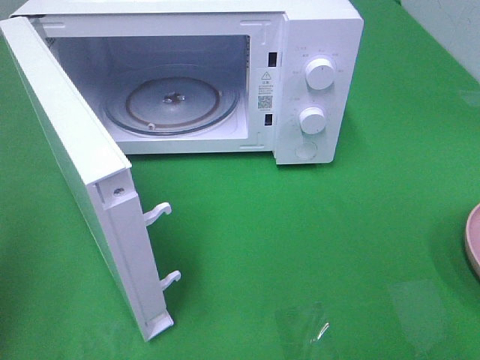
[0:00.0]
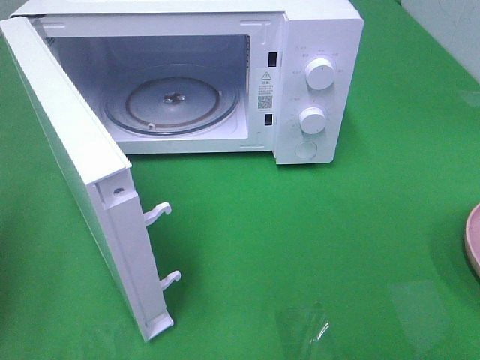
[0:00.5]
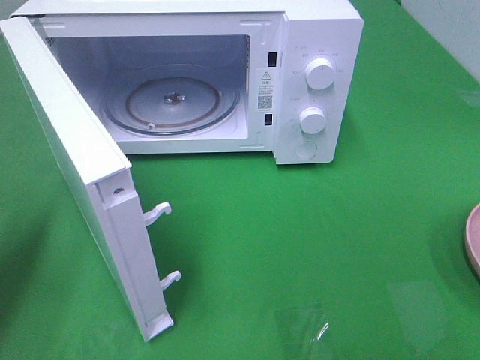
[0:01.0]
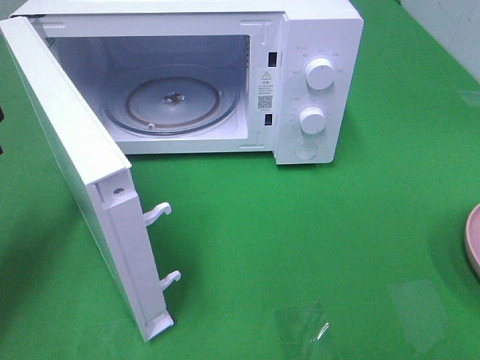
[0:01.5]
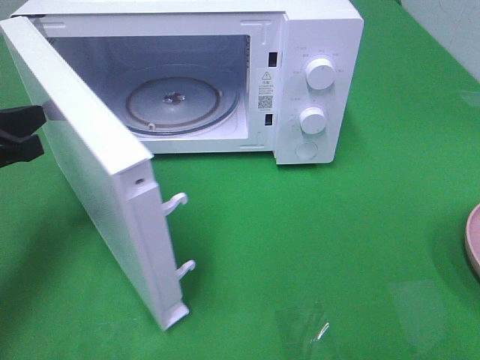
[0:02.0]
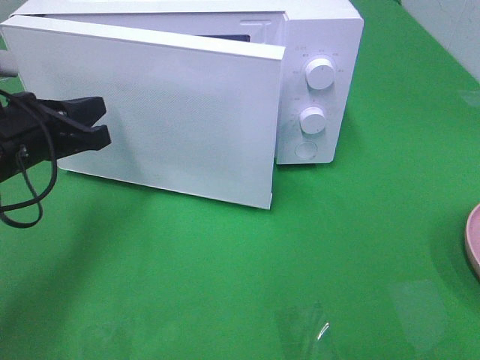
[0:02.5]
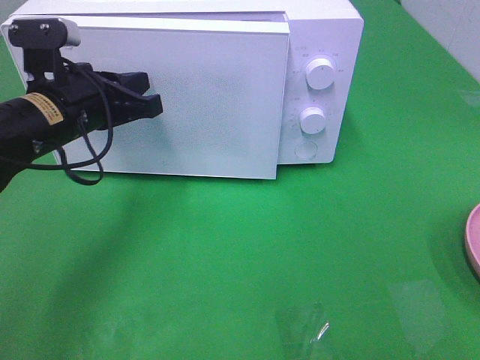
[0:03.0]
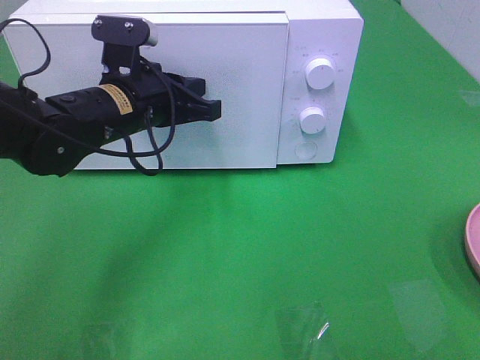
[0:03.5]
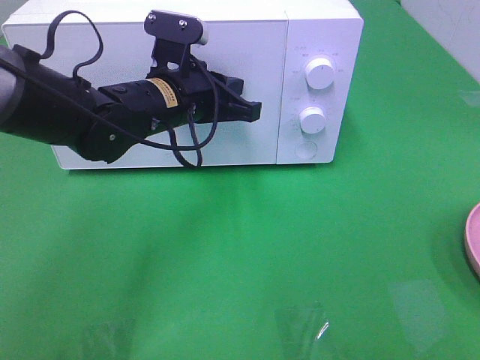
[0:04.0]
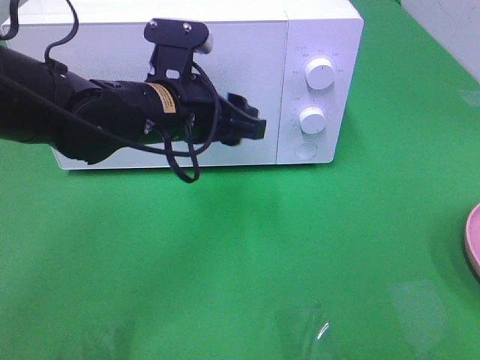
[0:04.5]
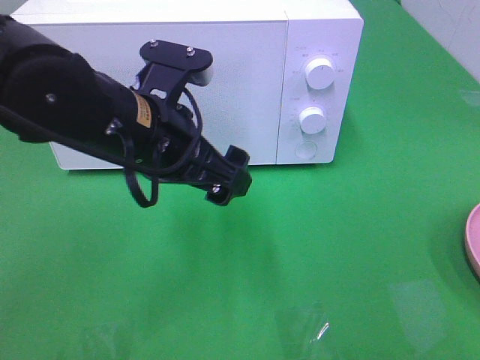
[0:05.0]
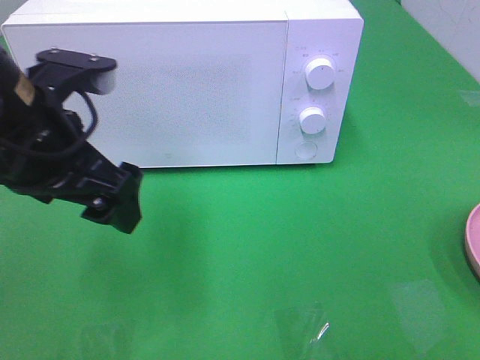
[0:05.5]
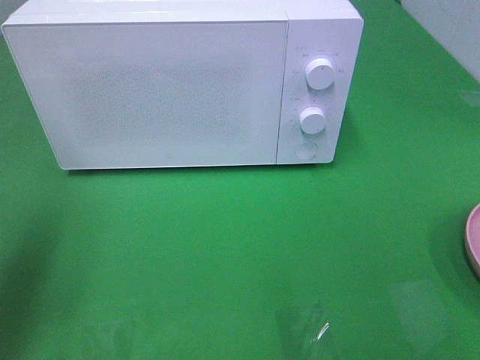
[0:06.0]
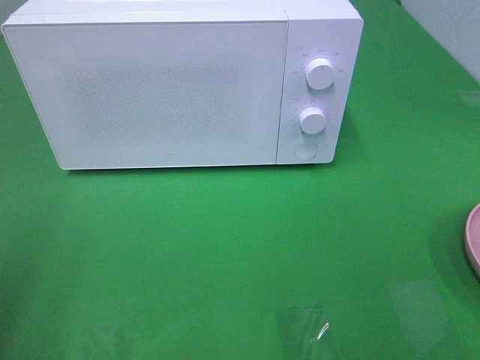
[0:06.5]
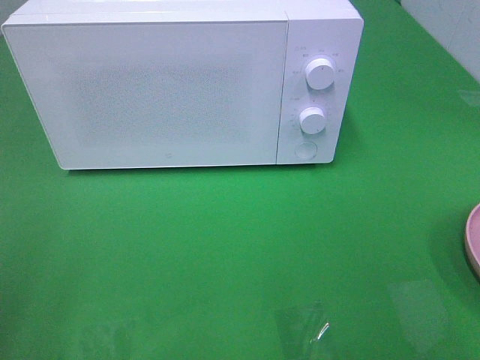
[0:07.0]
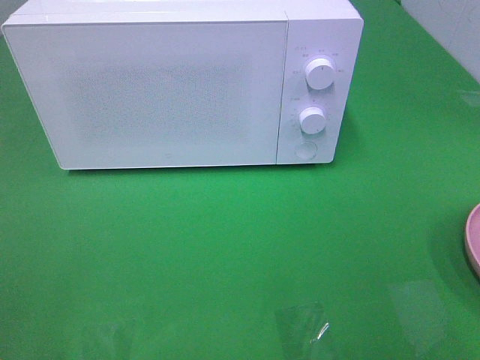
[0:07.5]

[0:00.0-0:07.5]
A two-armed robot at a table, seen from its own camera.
Task of the whole recording: Heat the burger.
Step, 0:00.0 to 0:04.0: Left hand: close the microwave door.
0:00.0 to 0:02.0: The left gripper goes roughly 20 cm forward and downward.
0:02.0 to 0:04.0: The left gripper is displaced to the right and forward by about 20 cm.
0:04.0 to 0:05.5: The left gripper goes approximately 15 cm backward, to the left and upward, and opens up.
0:05.5 to 0:07.5: The left gripper travels backward and to the left by some 30 cm.

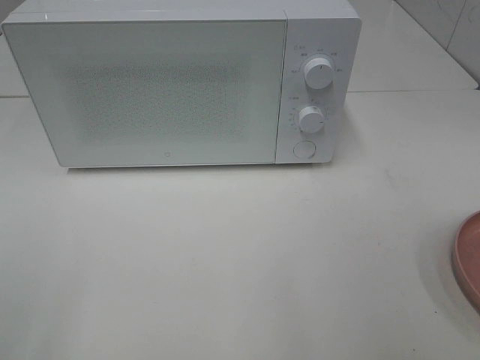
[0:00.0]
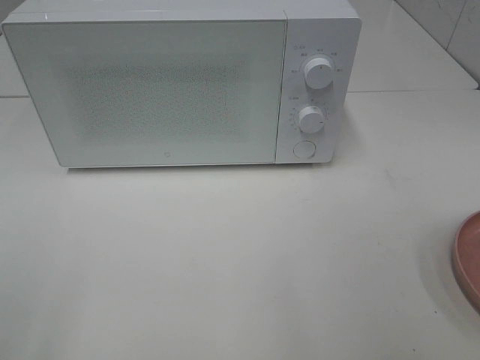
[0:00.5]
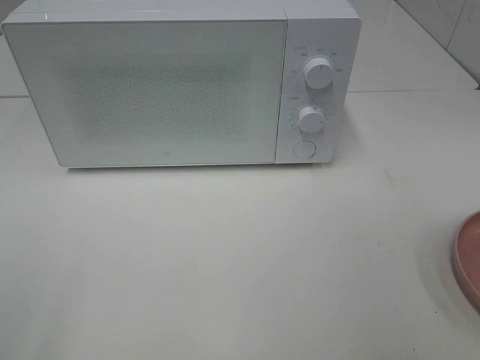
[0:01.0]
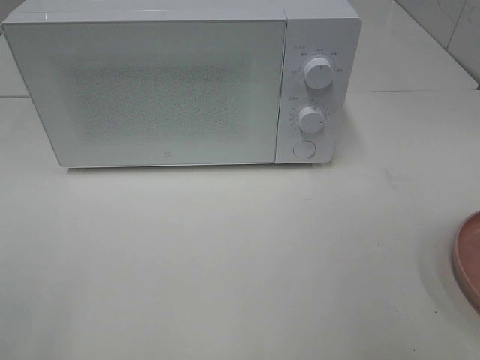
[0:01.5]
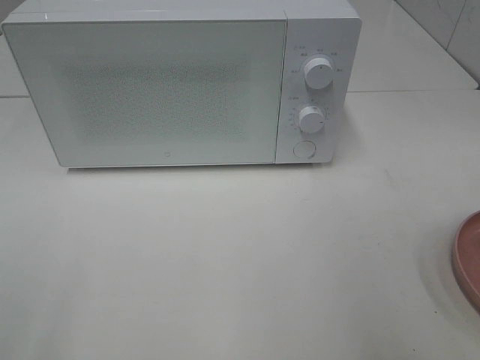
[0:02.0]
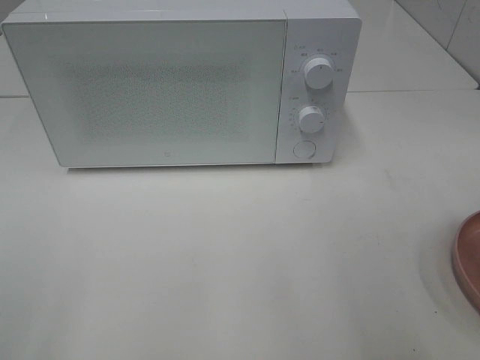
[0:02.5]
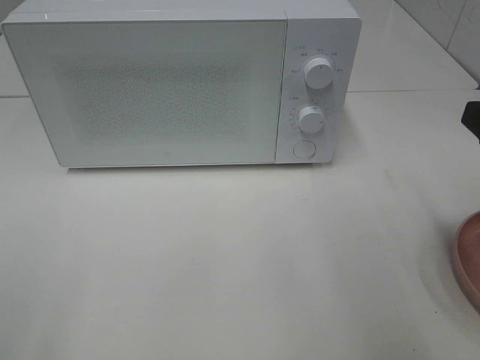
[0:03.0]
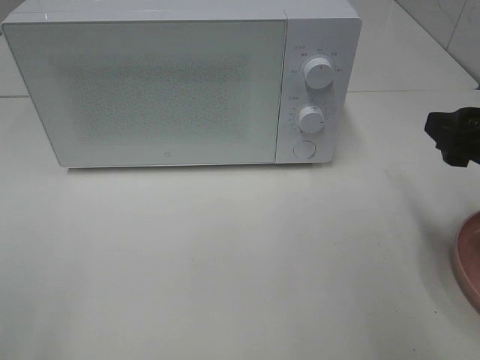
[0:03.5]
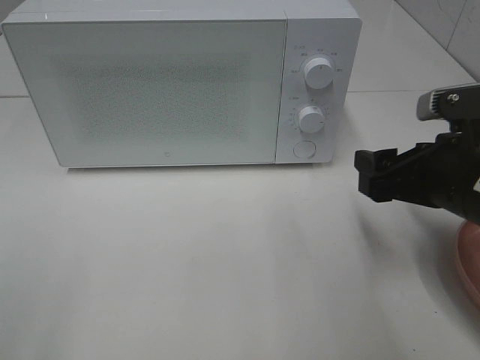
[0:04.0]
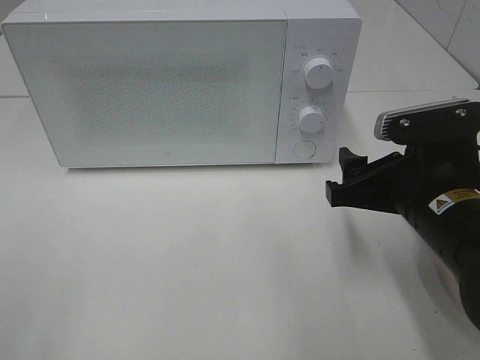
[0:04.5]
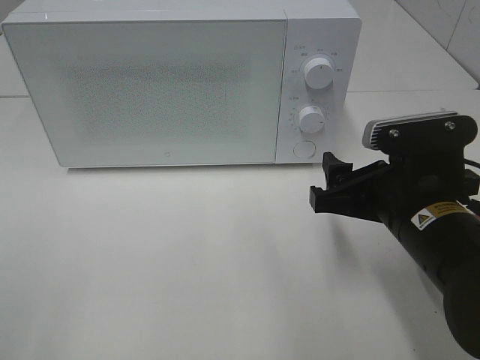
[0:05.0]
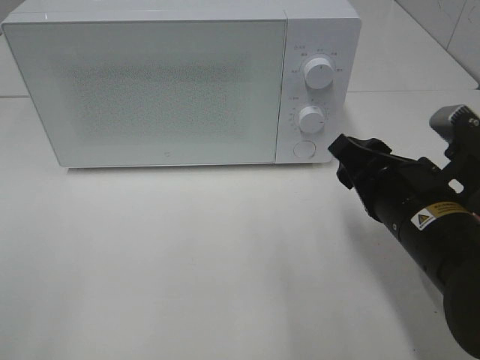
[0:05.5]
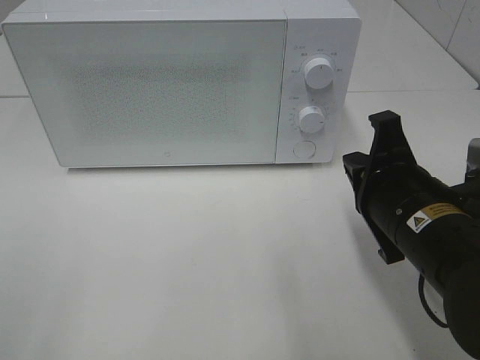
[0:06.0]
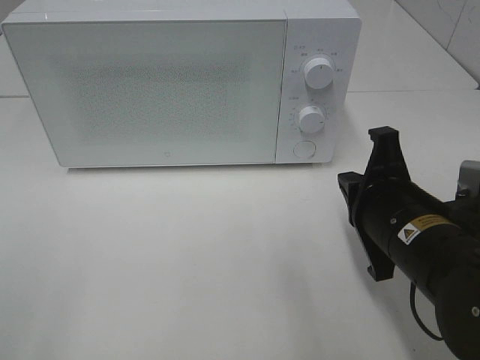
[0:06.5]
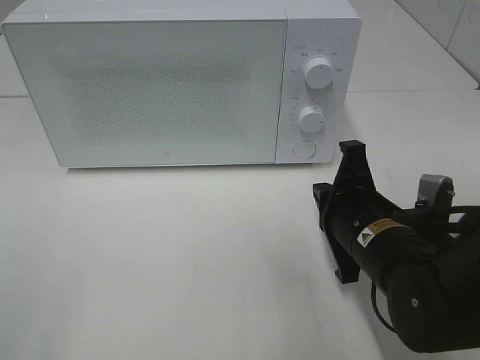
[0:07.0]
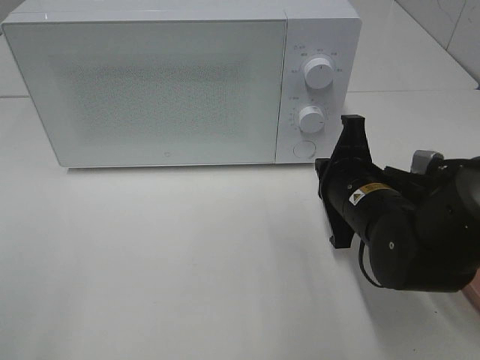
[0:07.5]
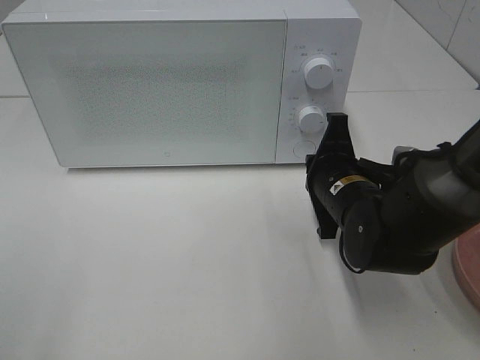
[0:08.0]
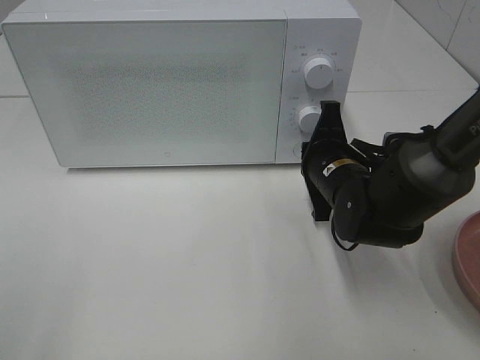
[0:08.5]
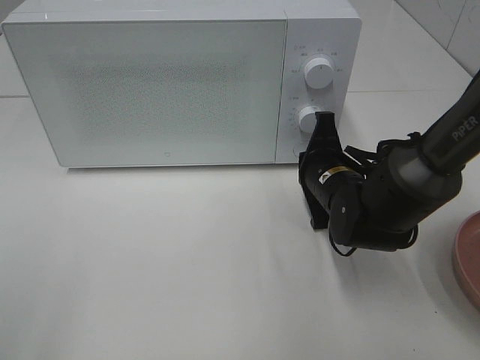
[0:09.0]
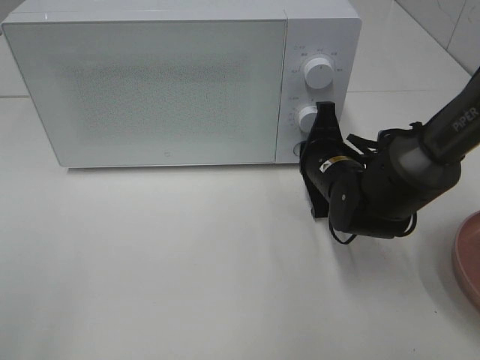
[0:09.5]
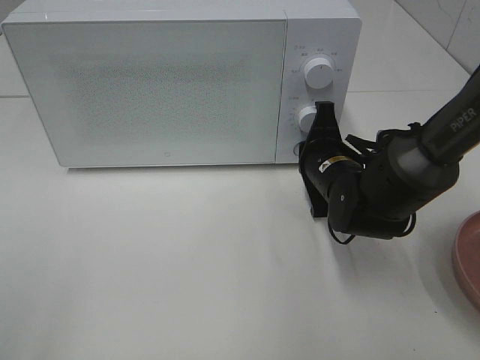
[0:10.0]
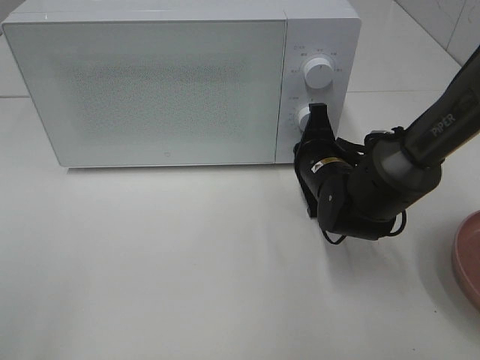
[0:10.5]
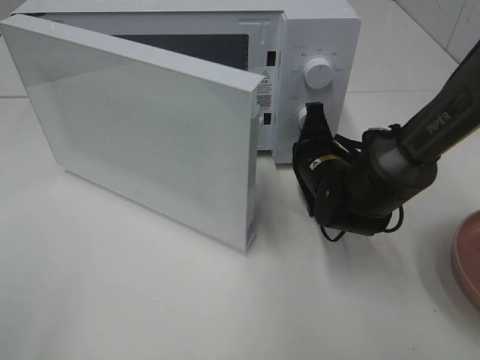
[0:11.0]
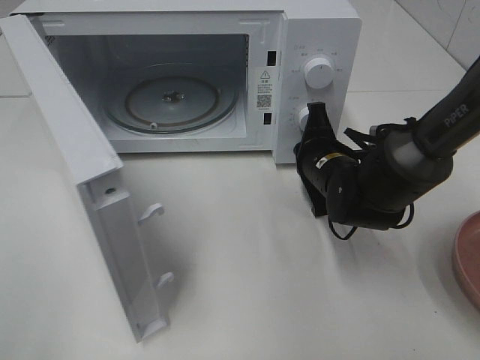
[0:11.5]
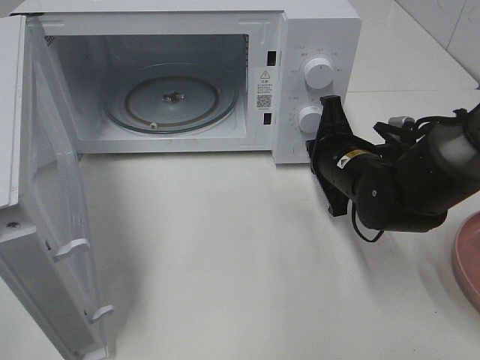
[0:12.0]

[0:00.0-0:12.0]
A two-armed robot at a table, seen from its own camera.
Task of the whole recording: Heat the burger.
0:02.0 to 0:04.0: The right gripper travels downward, forward and to the left by some 20 cm.
0:04.0 to 0:06.0: The right gripper shifts approximately 5 cm to the left, and closes its fingers.
0:06.0 to 0:08.0: The right gripper shifts roughly 10 cm forward and downward.
0:08.0 to 0:10.0: The grippers make only small movements.

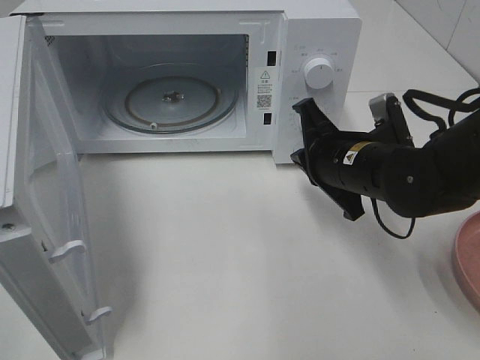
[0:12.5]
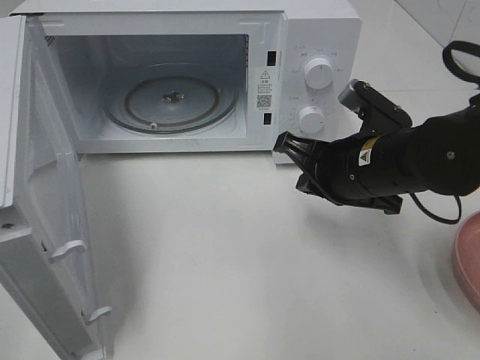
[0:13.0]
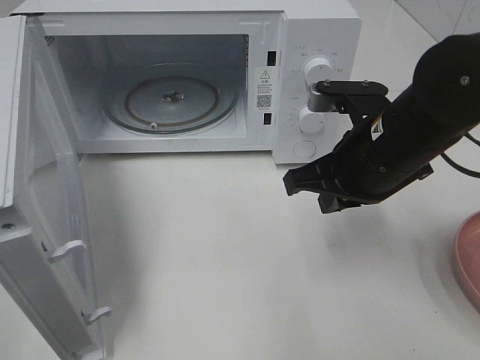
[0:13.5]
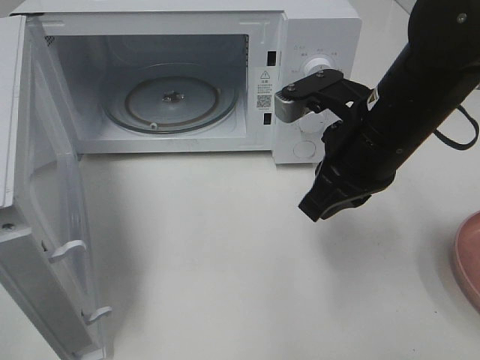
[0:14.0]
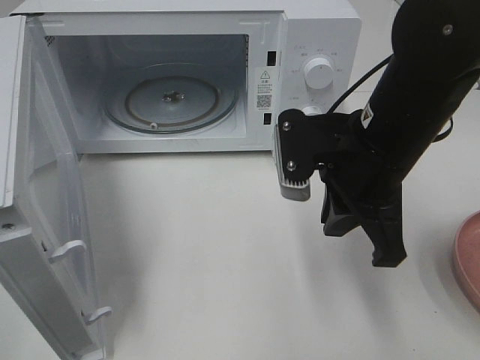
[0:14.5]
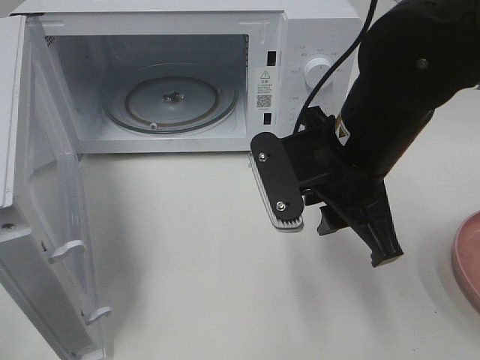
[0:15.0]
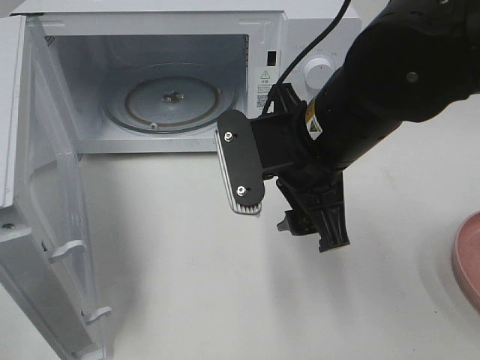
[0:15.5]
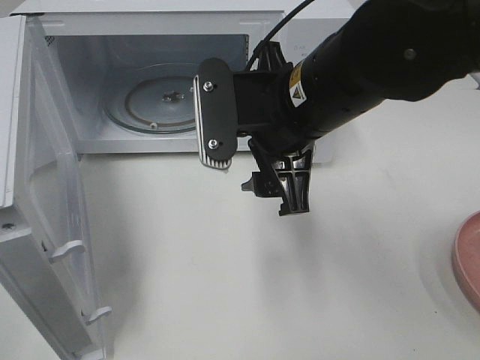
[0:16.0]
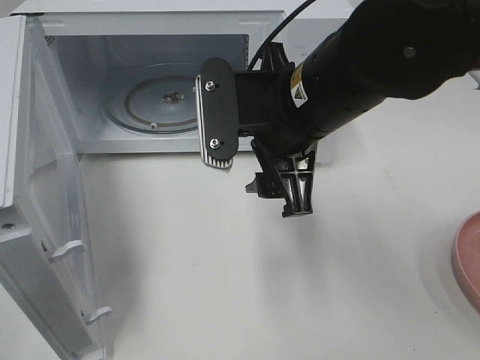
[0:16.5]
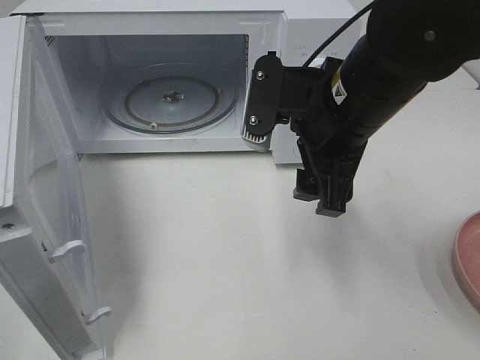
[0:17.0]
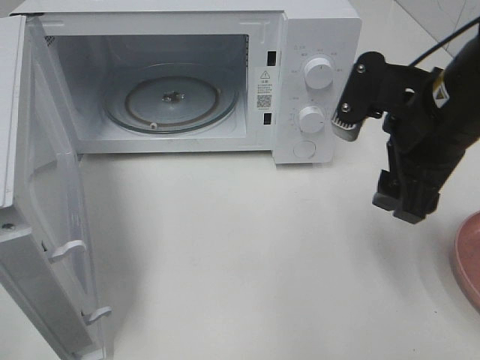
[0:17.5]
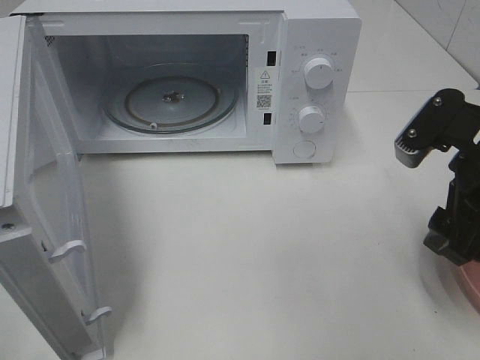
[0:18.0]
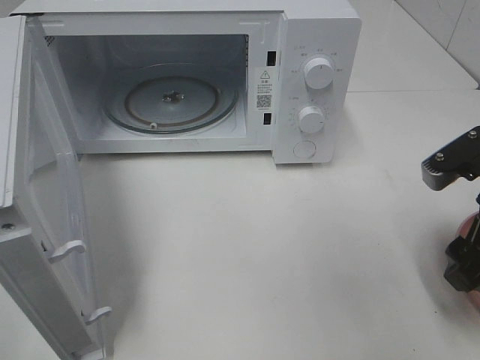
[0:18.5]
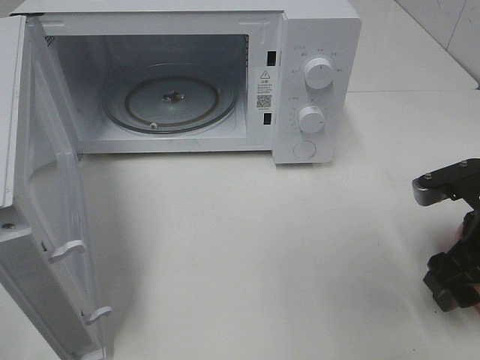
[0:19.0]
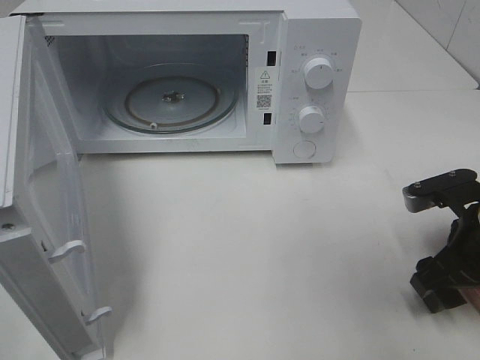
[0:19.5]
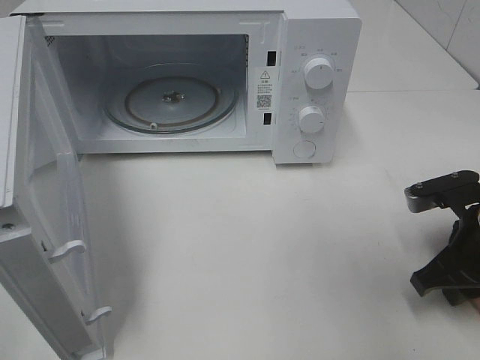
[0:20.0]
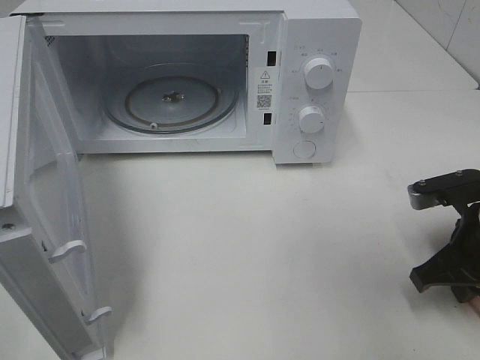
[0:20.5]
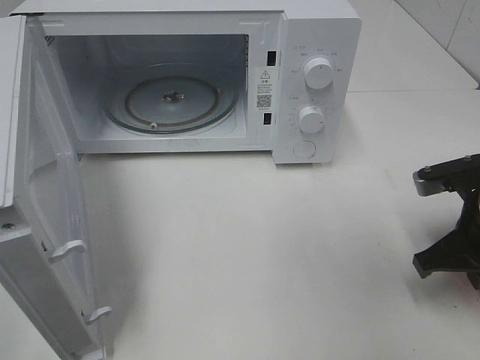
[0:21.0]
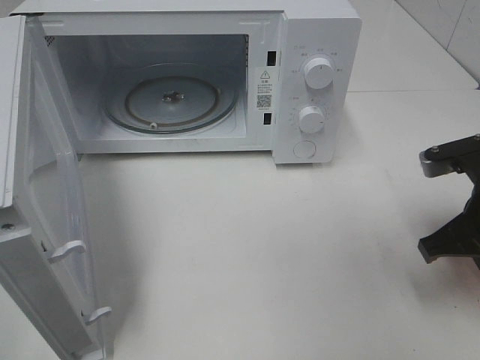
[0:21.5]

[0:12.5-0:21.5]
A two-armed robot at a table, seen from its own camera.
Task of the whole recording: Heat the burger.
Step, 0:12.5 to 0:20.5: Right hand: grab the plate with the hamburger.
0:12.5 to 0:14.5: The right gripper heads upward, covering about 10 cm.
0:14.5 to 0:17.0: The right gripper opens.
0:17.0 to 0:19.5: The right gripper goes approximately 20 cm to the right and downward.
0:19.5 to 0:21.5: The right gripper closes.
